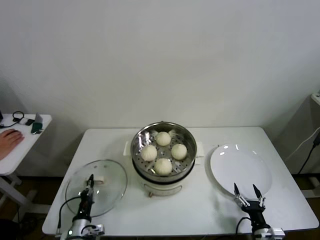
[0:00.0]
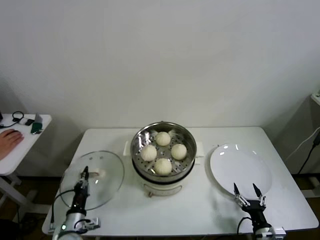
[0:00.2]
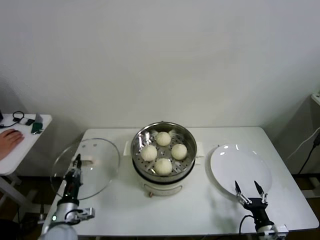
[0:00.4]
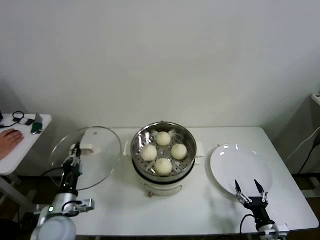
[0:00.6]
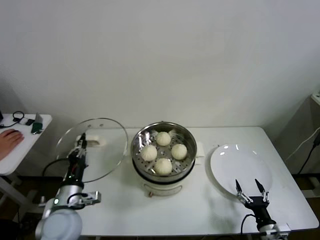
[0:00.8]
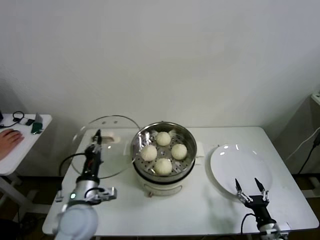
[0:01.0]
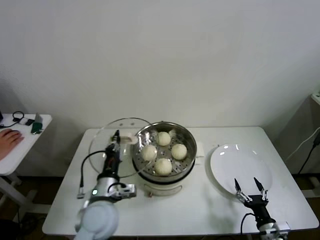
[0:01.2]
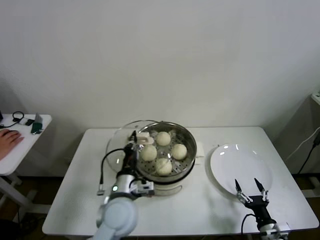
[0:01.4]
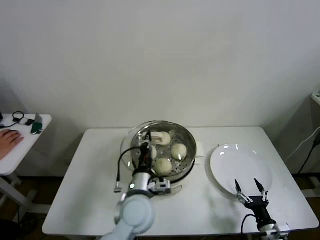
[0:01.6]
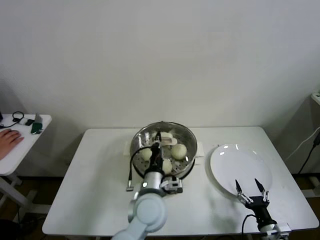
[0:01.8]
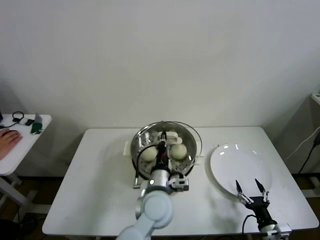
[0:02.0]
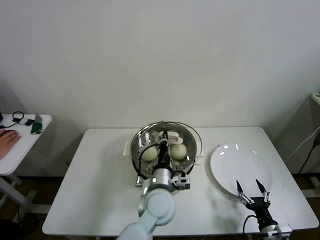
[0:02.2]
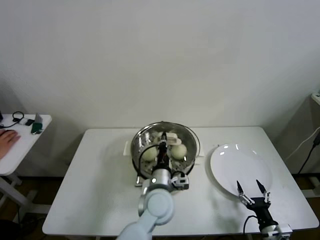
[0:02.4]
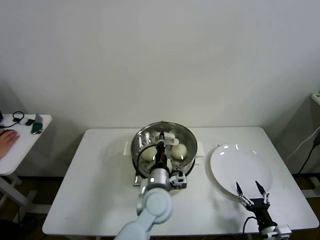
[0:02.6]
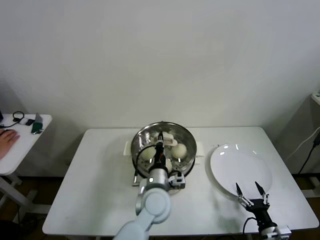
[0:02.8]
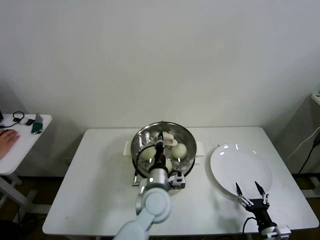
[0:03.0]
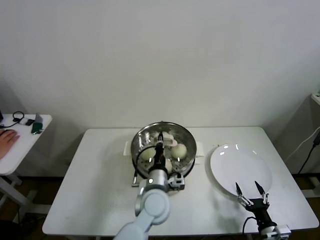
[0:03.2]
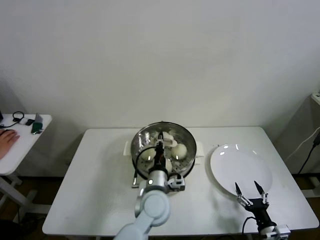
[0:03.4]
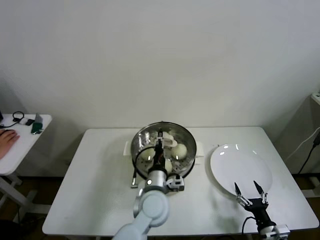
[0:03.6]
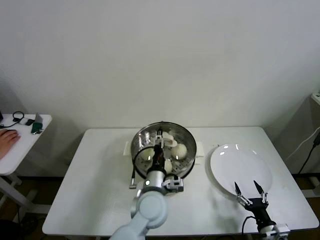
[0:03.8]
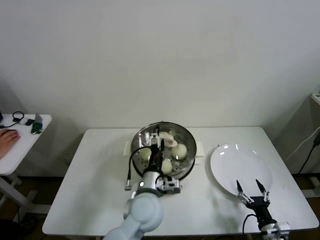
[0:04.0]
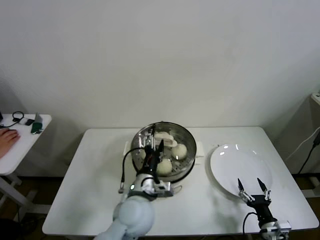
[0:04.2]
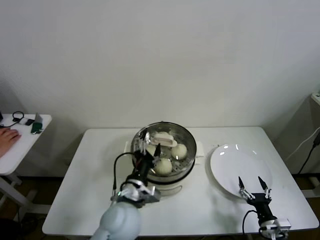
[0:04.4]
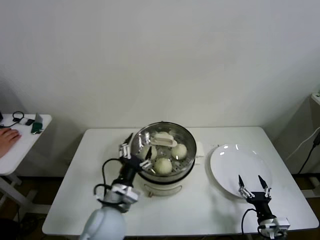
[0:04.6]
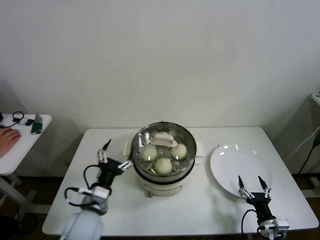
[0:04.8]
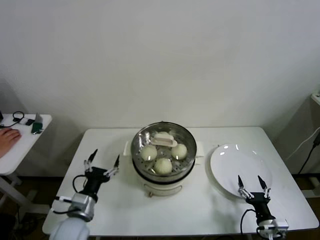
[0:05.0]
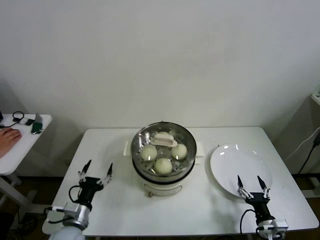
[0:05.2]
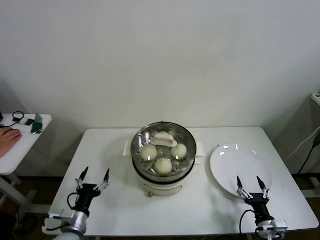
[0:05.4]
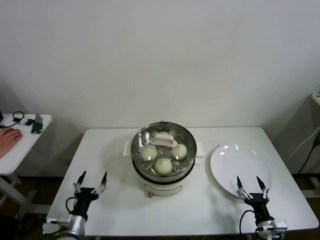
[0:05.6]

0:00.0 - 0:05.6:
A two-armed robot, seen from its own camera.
Step, 0:00.0 - 0:03.4: Place the pot lid on the steamer with left gripper.
0:00.0 - 0:01.4: The left gripper heads upward and to the right, covering roughly 30 cm.
0:01.4 - 0:02.8: The left gripper travels to the right by roughly 10 cm.
0:02.8 - 0:04.2: The left gripper moves about 5 cm, and opens.
0:04.2 - 0:05.6: The left gripper is displaced to the left and downward by about 30 cm.

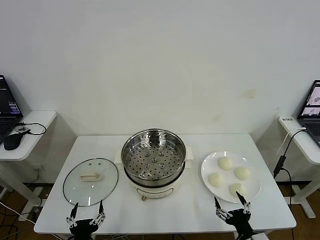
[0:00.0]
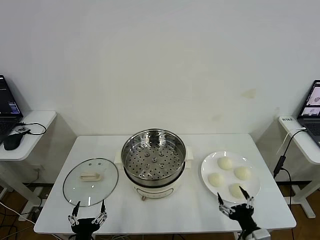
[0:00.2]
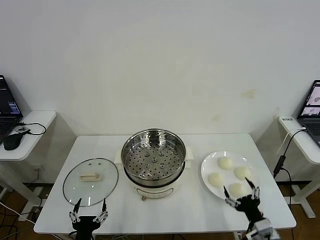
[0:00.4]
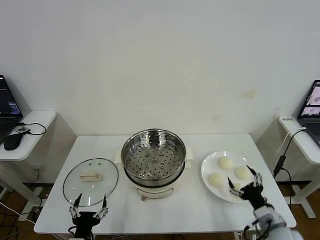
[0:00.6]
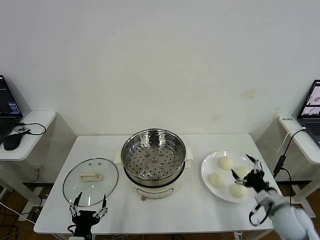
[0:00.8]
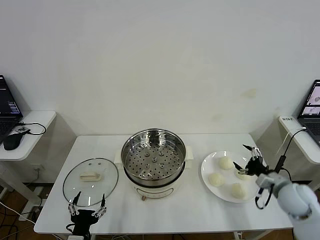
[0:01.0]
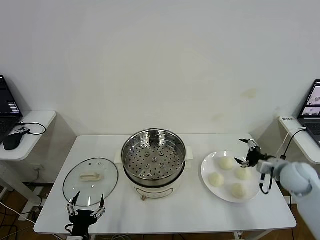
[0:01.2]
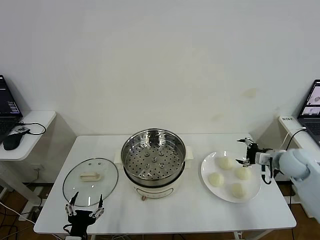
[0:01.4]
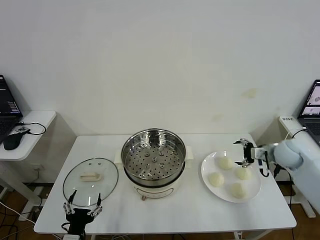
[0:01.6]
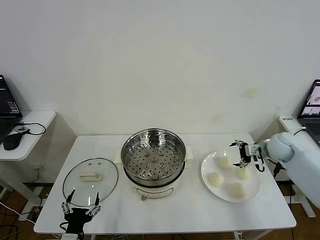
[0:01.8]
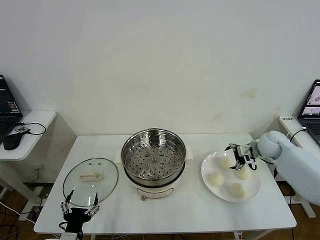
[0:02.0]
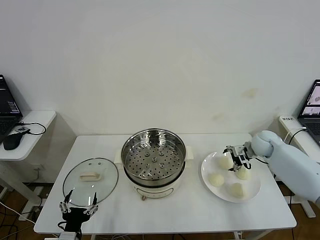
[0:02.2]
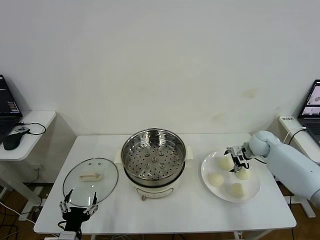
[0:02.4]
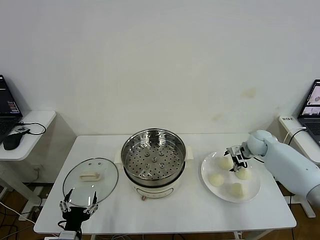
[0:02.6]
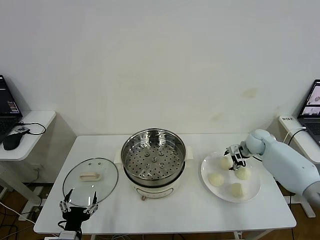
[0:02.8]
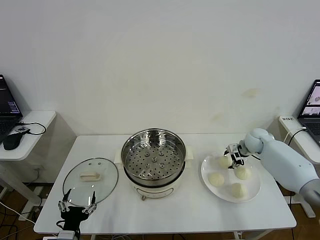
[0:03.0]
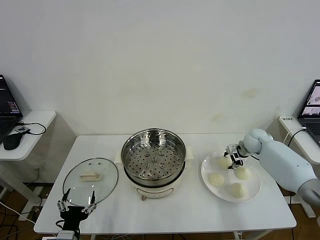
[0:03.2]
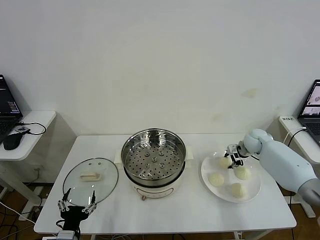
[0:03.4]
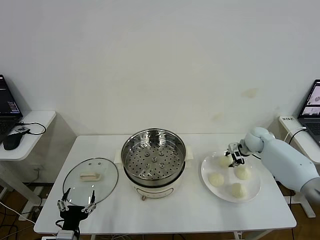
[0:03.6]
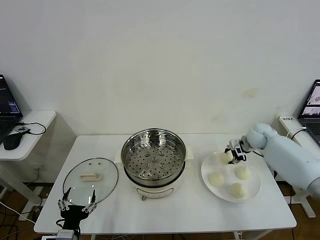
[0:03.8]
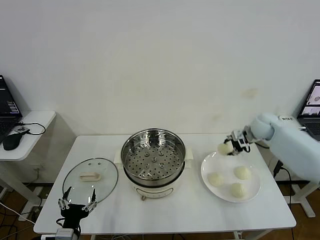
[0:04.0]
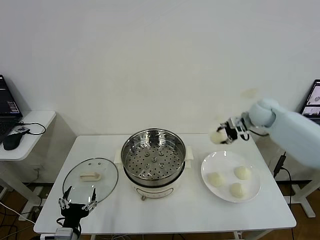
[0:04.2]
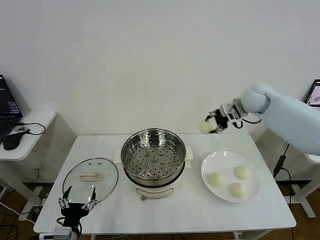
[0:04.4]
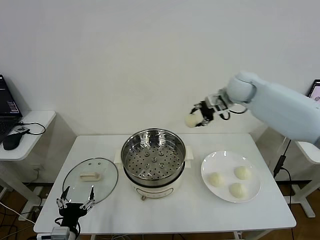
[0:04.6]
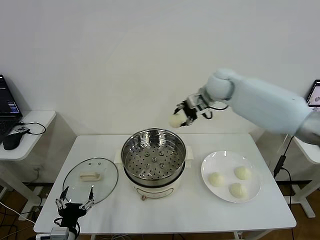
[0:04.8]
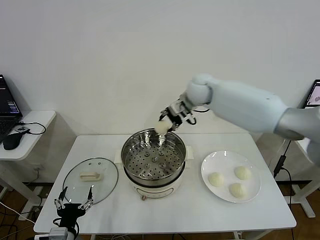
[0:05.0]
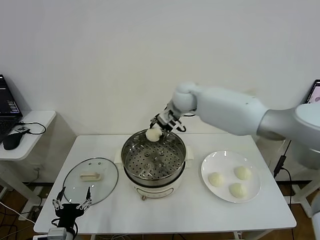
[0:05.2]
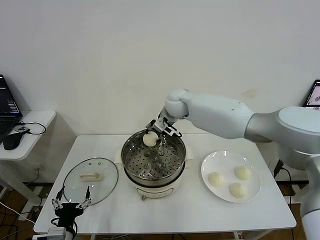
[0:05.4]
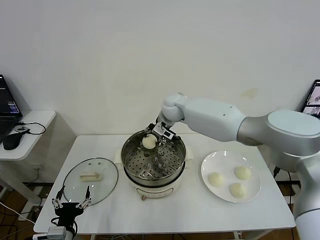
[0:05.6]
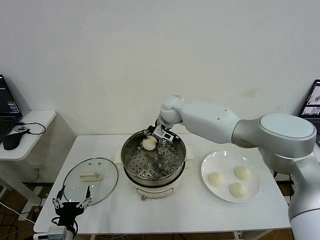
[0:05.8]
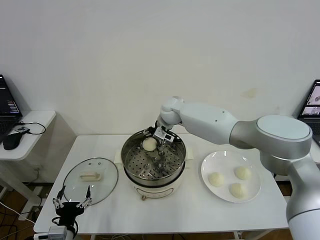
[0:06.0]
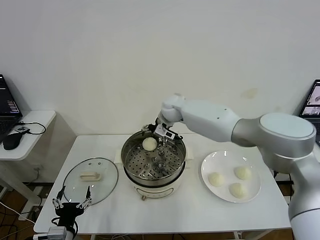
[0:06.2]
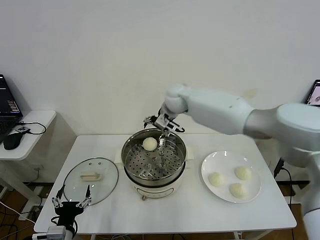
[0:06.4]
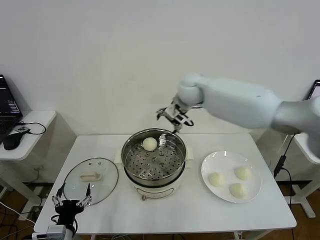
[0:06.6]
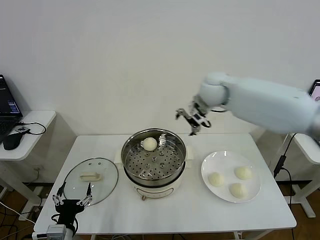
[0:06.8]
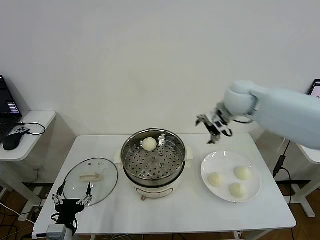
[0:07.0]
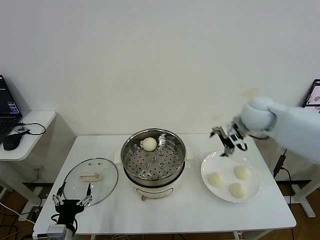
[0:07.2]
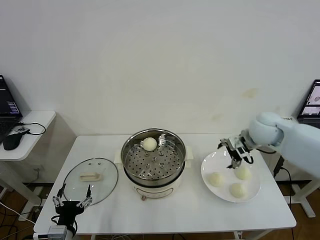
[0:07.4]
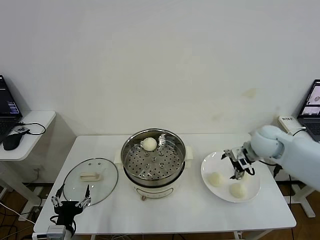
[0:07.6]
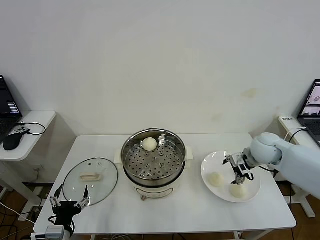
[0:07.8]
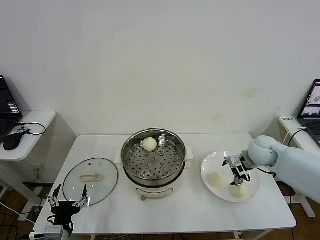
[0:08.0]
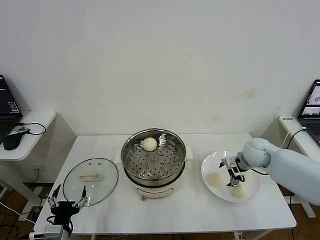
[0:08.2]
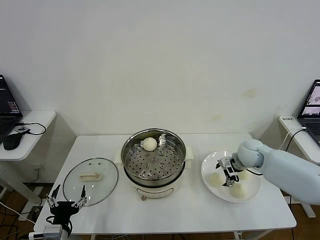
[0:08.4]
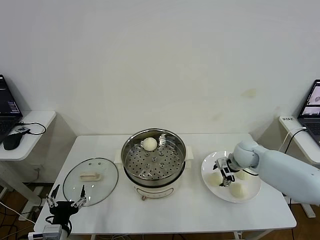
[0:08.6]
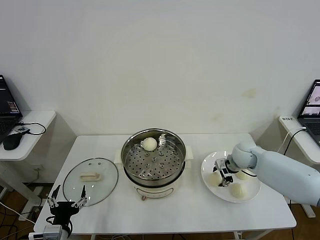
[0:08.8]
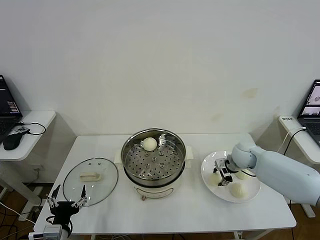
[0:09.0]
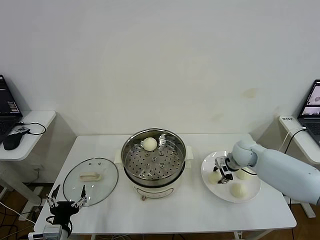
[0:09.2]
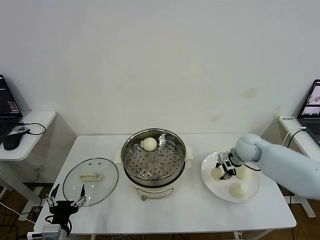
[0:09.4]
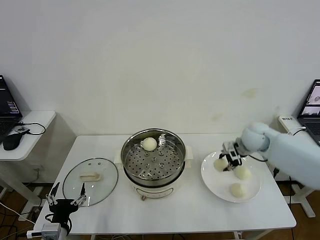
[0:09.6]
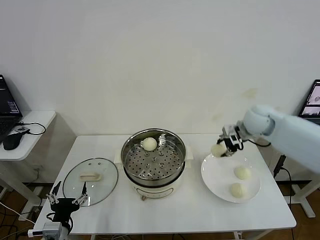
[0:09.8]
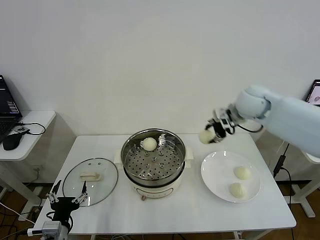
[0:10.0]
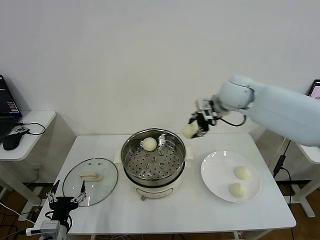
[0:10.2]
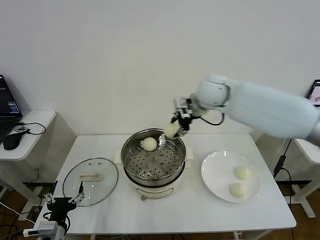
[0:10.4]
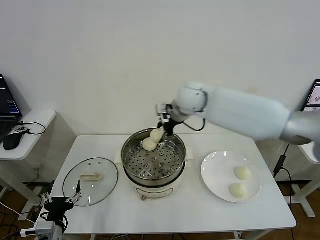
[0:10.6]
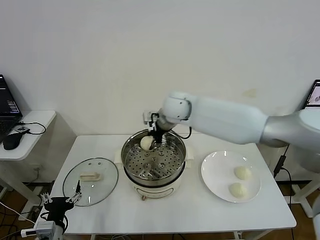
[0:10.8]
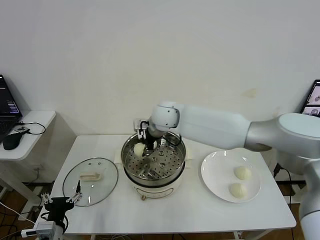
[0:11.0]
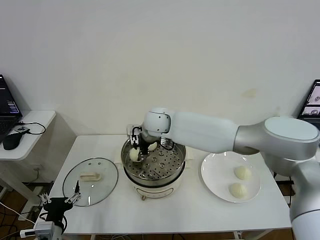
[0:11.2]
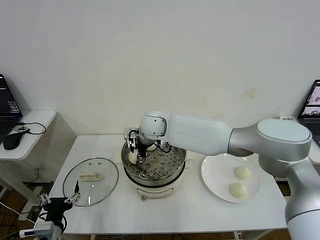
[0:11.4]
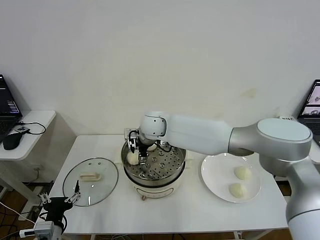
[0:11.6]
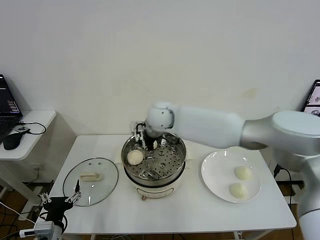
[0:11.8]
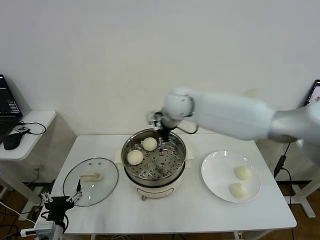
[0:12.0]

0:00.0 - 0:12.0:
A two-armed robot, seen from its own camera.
Step, 0:00.0 - 0:03.2: Grasp the baozi in the plate with right gripper.
Step, 0:03.6 - 0:06.0: Place the baozi on the steamer with right gripper.
Step, 0:06.2 - 0:09.0: Grasp the baozi in the plate with right gripper.
Step, 0:09.2 - 0:11.4: Place the baozi on the steamer with right gripper.
0:01.6 - 0:03.0: The right gripper is displaced forward and downward by some 10 cm, and closes.
0:03.0 - 0:04.4: The right gripper moves upward and to the left, about 25 cm.
0:04.4 - 0:06.0: The right gripper heads to the left and downward, covering approximately 25 cm, and opens.
0:06.0 - 0:07.6: The right gripper travels to the right and backward by roughly 35 cm.
0:07.6 - 0:09.0: The right gripper travels downward by approximately 10 cm, and closes.
0:09.0 - 0:10.4: The right gripper moves upward and to the left, approximately 30 cm.
0:10.4 - 0:12.0: The right gripper travels to the left and back again, about 15 cm each way, and opens its fingers.

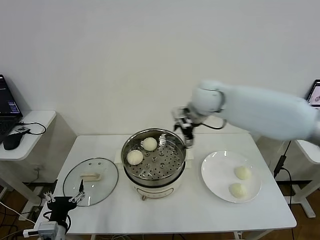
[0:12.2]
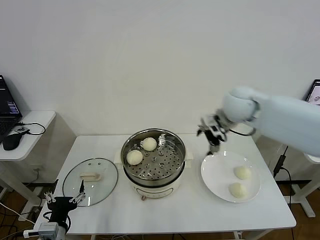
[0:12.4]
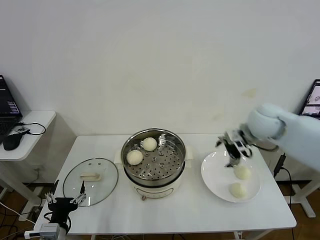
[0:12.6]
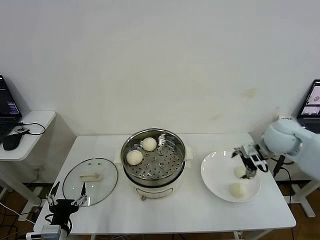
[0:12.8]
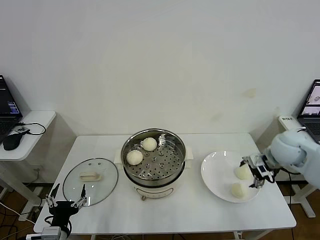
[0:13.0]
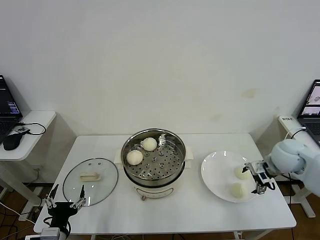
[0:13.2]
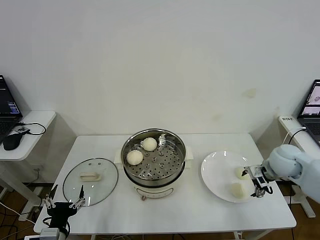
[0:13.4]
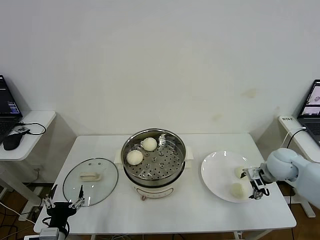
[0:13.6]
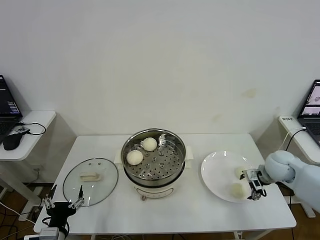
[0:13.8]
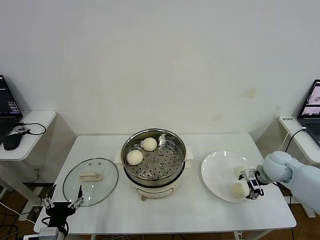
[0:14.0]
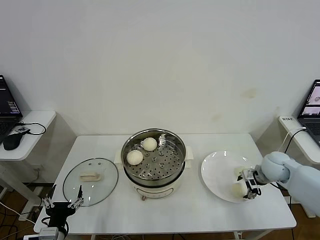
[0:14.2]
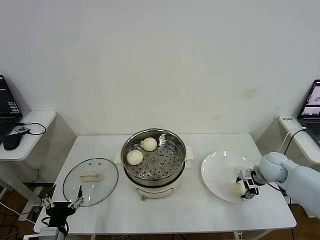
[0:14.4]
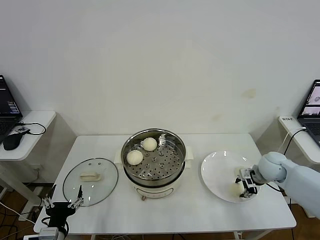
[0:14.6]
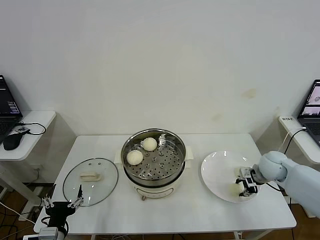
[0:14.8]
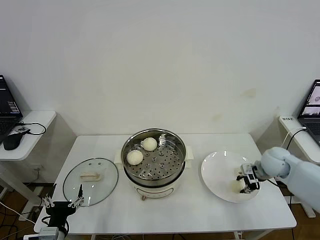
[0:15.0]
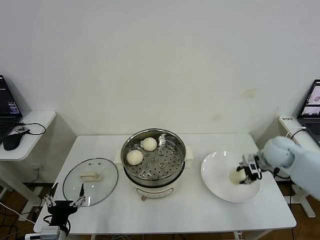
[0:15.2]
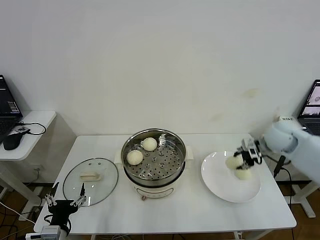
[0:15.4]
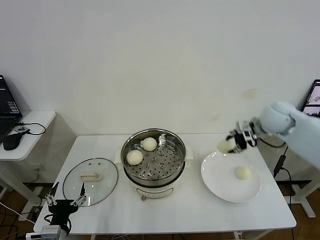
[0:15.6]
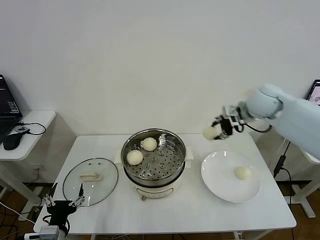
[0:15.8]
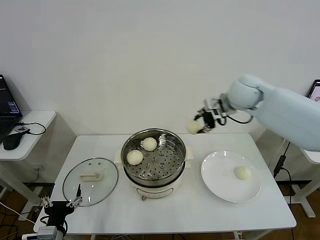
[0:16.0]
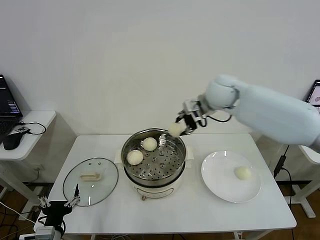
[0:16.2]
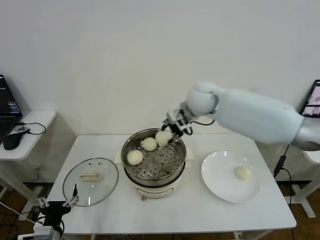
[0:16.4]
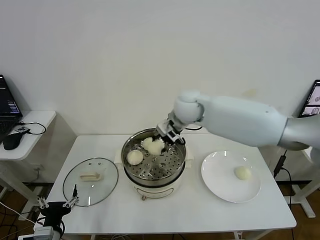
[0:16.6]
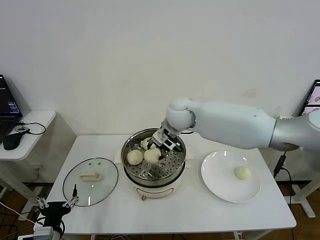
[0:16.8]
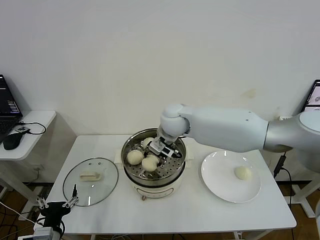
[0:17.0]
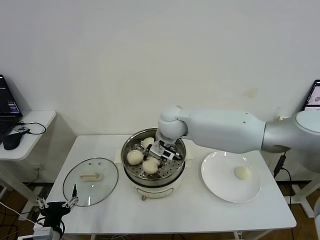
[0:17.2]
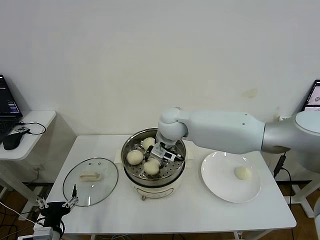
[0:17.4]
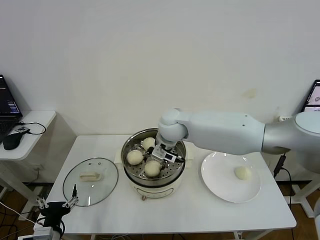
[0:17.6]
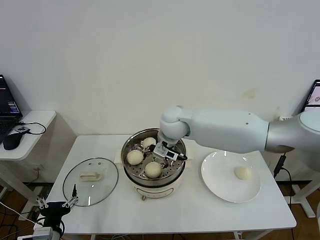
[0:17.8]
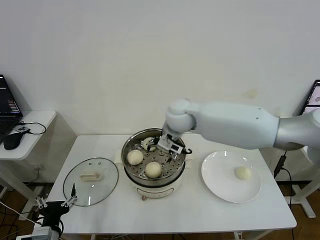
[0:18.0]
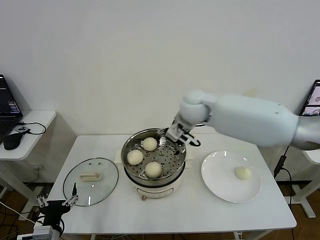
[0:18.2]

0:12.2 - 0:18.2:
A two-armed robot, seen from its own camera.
Step, 0:12.2 - 0:14.8: Grasp the baozi in the plate with right gripper.
Step, 0:15.0 - 0:17.8: Place the baozi on the steamer with right gripper.
0:12.2 - 0:13.8: The right gripper moves to the right, downward and backward, about 30 cm.
0:13.8 - 0:15.2: The right gripper is displaced upward by approximately 5 cm, and closes.
0:15.2 - 0:16.6: The right gripper moves to the left, some 30 cm.
0:16.6 - 0:18.2: The right gripper opens.
